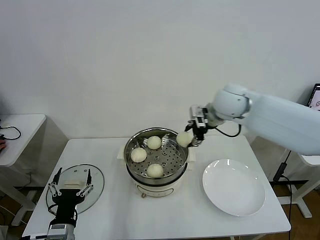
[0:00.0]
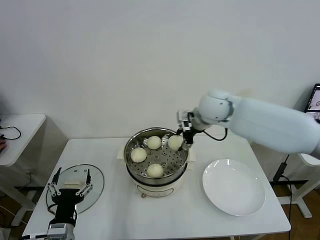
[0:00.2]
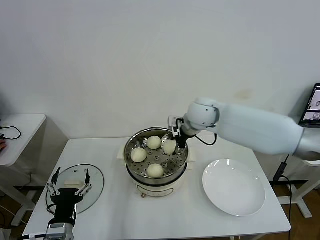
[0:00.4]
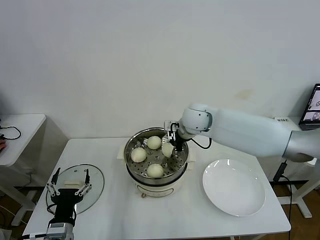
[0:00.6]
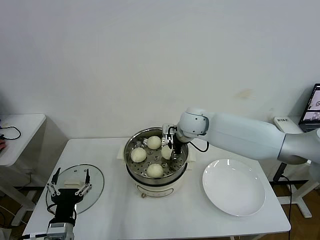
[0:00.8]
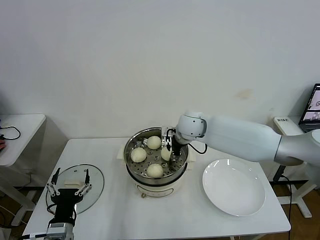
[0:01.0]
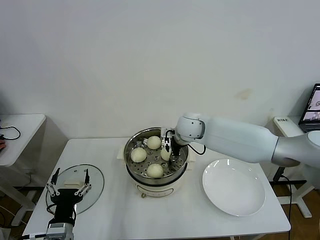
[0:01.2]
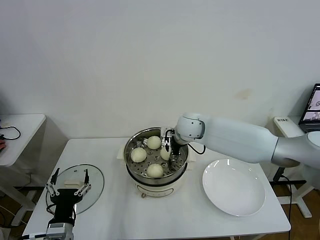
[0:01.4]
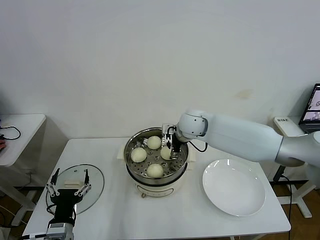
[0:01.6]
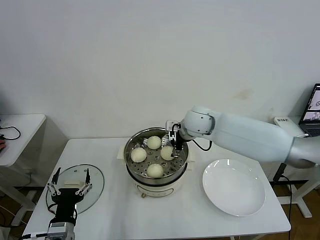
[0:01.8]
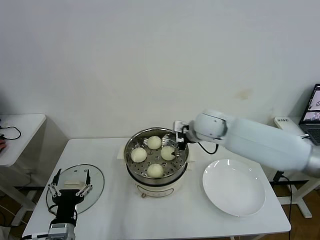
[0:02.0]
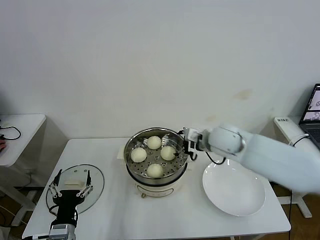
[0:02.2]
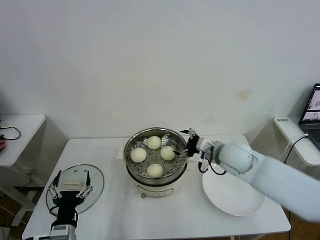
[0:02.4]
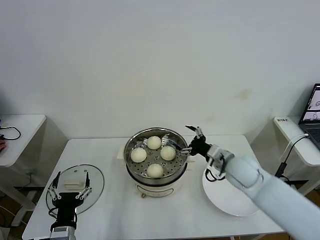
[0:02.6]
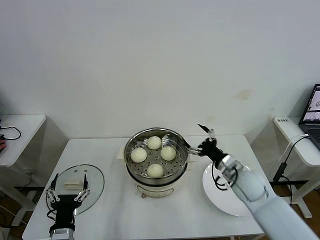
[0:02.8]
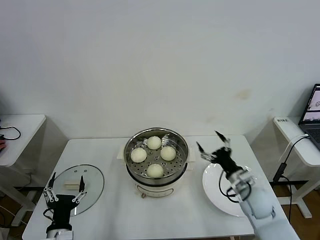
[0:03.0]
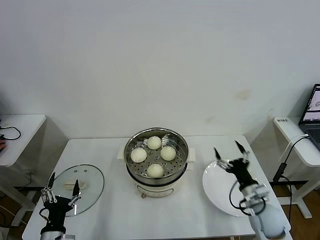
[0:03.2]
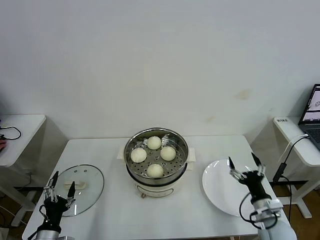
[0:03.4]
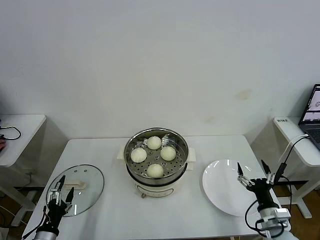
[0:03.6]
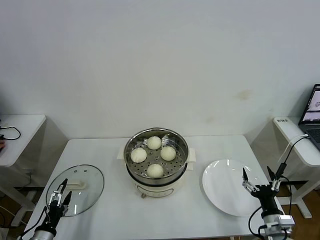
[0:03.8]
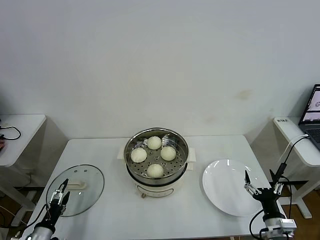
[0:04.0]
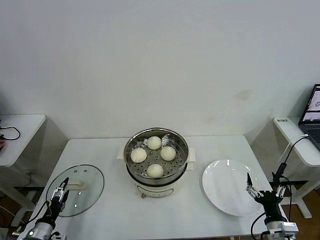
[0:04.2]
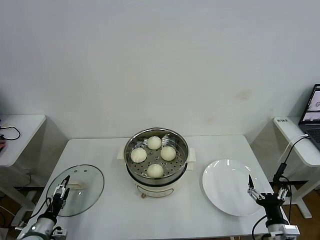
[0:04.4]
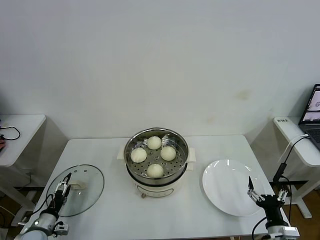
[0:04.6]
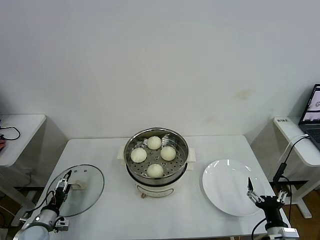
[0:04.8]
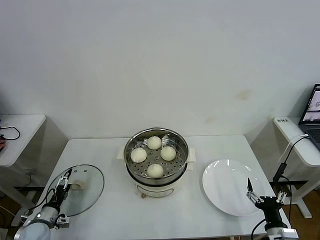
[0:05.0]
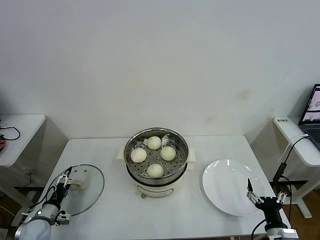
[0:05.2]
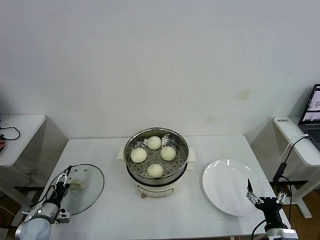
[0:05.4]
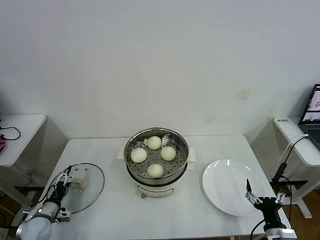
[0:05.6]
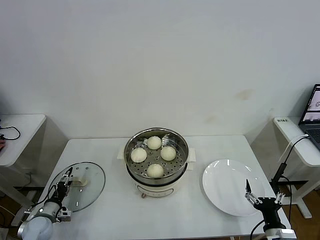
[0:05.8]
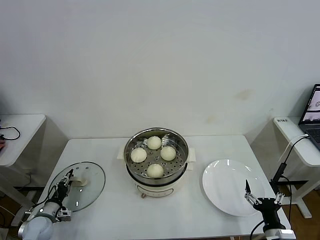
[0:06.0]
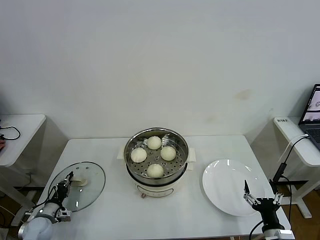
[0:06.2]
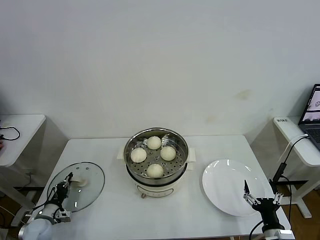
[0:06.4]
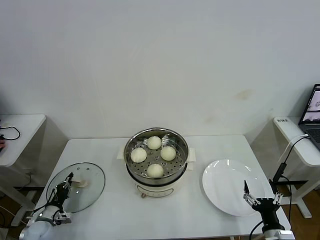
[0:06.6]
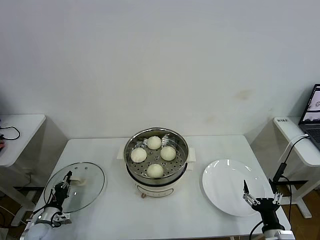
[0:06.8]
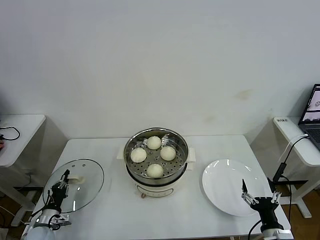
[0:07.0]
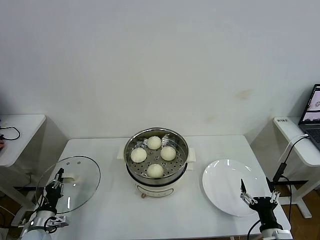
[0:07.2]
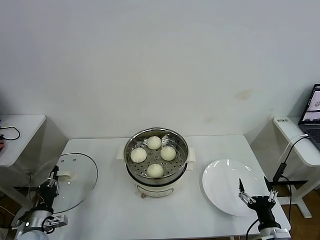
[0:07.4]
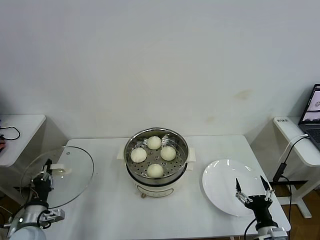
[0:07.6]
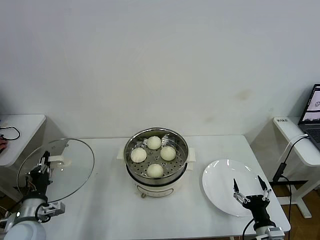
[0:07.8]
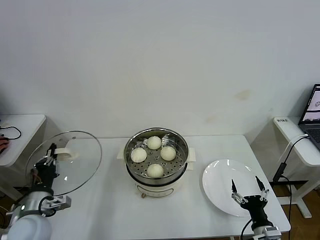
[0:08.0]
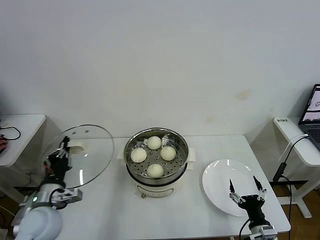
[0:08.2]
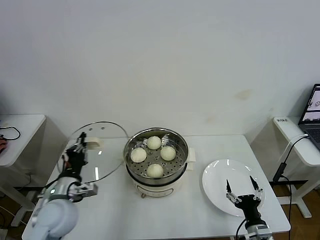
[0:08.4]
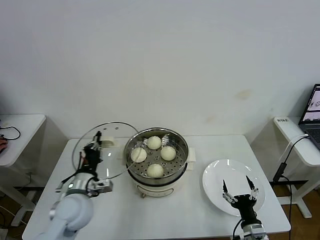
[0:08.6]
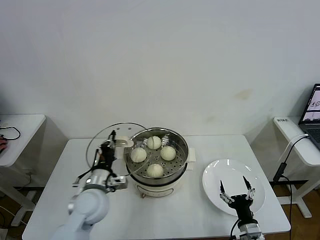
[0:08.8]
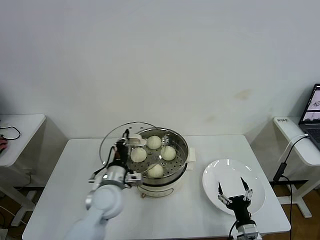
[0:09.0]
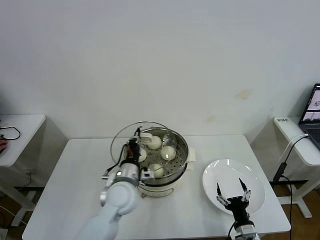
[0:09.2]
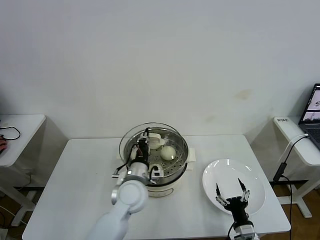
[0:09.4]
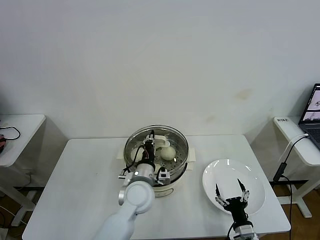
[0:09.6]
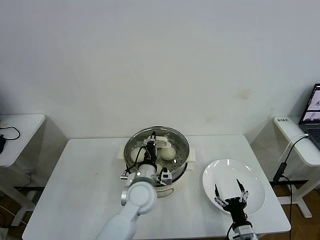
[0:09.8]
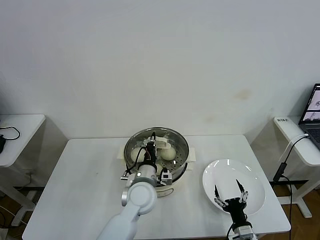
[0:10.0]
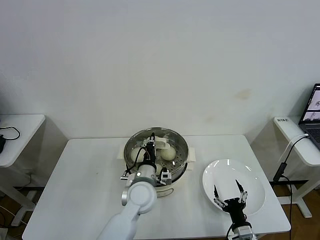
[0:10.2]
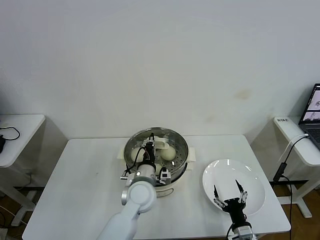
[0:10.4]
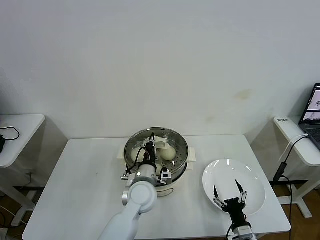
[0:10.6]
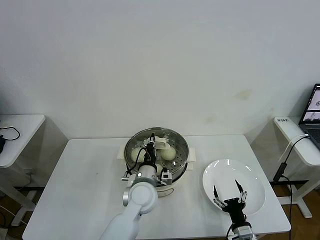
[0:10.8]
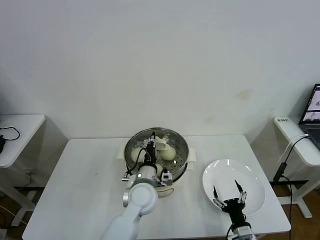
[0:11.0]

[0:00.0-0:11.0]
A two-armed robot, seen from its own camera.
Task of the whole recording: take steamed baozi put them in steamer then cover it.
Step, 0:00.0 to 0:01.6: Place the baozi on the steamer with right gripper.
Step, 0:01.8 to 0:06.4: Grasp the pot lid with left gripper.
0:00.0 to 0:01.6: The right gripper travels downward and to the left by some 15 cm, and opens.
0:01.6 to 0:03.2: The left gripper is displaced downward by roughly 5 cm, while the right gripper goes some 35 cm backward, to the right and downward.
0:03.2 to 0:04.8: The left gripper goes approximately 20 cm to the left, forward and downward, while the right gripper moves backward, roughly 15 cm.
0:04.8 to 0:06.2: The left gripper closes.
0:06.2 to 0:07.8: The left gripper shifts about 20 cm upward and to the right.
0:07.8 to 0:09.4: The left gripper is displaced to the right by about 30 cm. Meanwhile the right gripper moves roughly 5 cm.
0:09.4 to 0:11.0: The grippers move only a little.

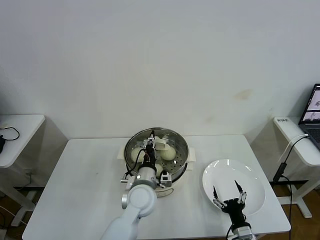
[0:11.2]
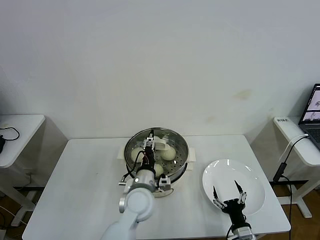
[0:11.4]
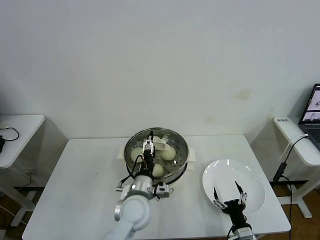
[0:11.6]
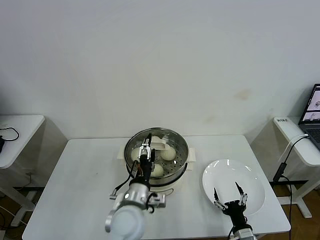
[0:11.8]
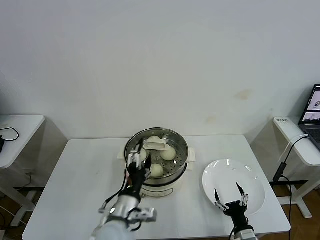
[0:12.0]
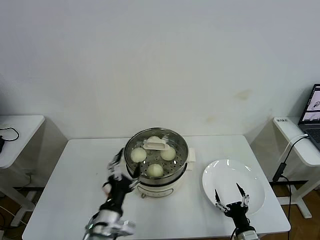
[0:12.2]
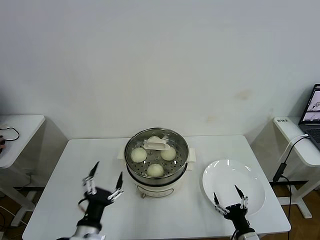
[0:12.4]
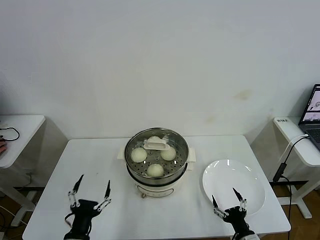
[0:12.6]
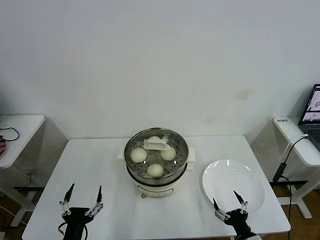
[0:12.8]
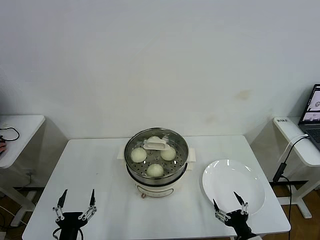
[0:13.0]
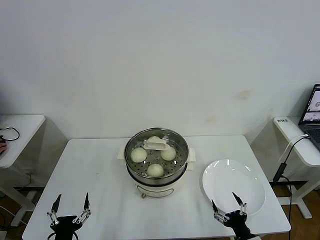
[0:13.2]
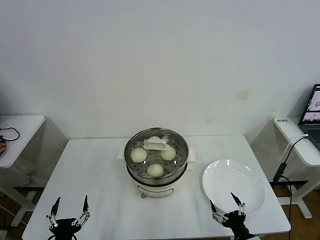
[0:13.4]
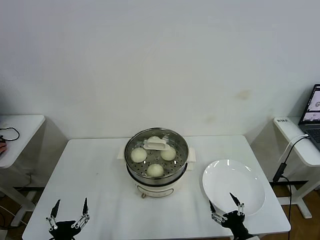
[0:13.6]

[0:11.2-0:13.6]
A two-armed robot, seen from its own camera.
Task of the whole recording: take steamed baozi put them in steamer then cover it.
0:11.2 to 0:12.4: The left gripper shifts approximately 25 cm backward and to the left, and opens.
0:12.4 to 0:13.6: The left gripper is displaced to the left, downward and backward by about 15 cm.
